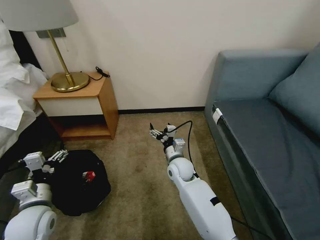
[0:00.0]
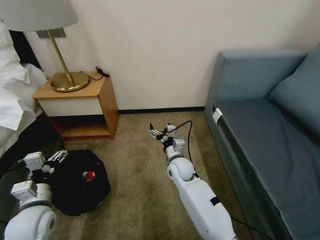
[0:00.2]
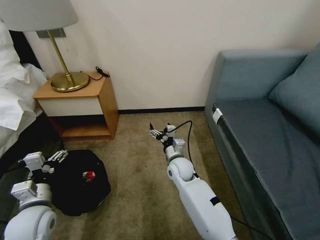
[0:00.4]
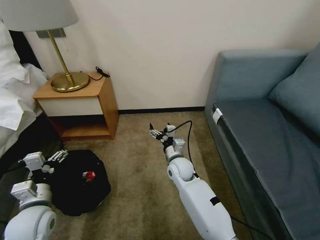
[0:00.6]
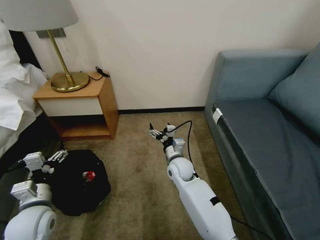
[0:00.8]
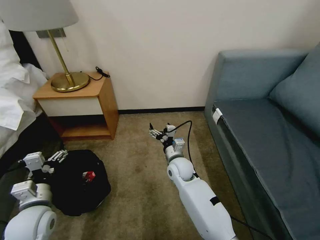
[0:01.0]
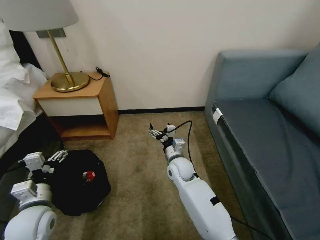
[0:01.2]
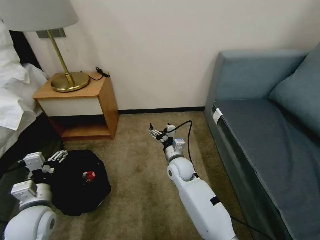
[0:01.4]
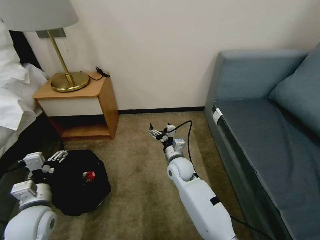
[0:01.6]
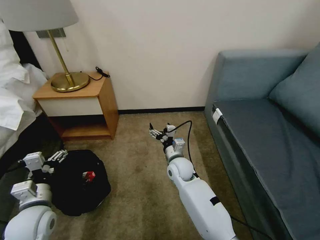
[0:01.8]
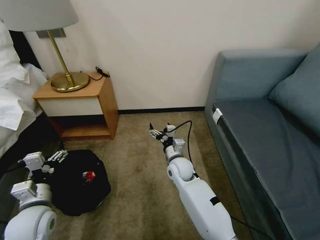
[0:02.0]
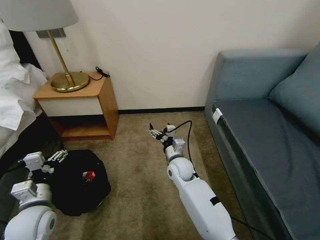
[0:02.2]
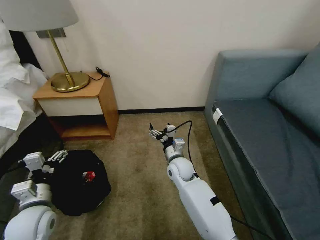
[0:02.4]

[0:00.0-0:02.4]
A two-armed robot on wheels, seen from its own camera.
Task of the whole recording: Pick up the trash bin, then pick up the garbage on the floor and place it into the trash bin.
0:00.0 to 0:02.4: Both grippers stay put.

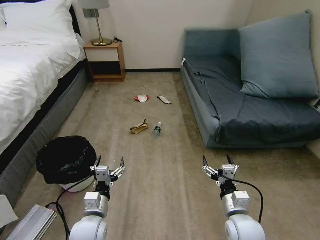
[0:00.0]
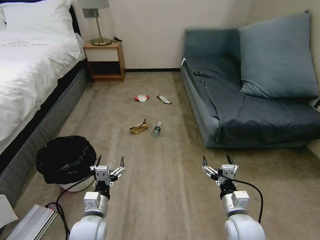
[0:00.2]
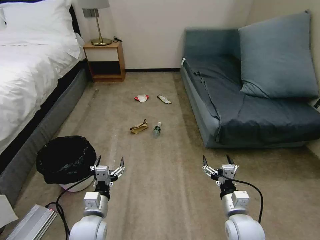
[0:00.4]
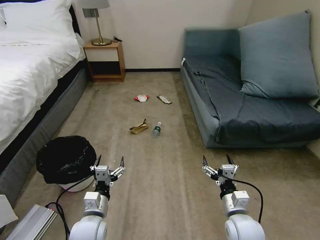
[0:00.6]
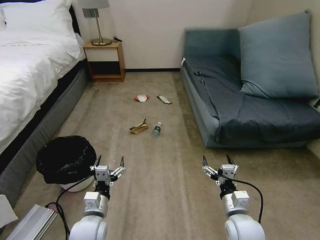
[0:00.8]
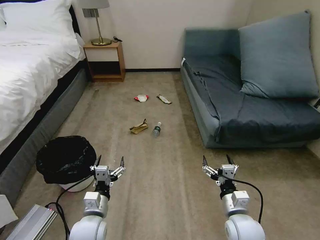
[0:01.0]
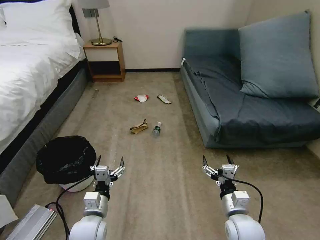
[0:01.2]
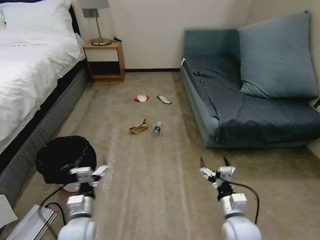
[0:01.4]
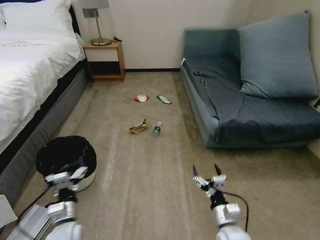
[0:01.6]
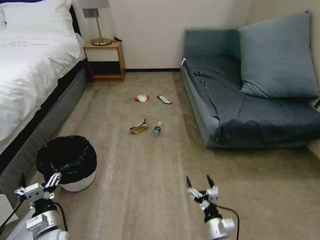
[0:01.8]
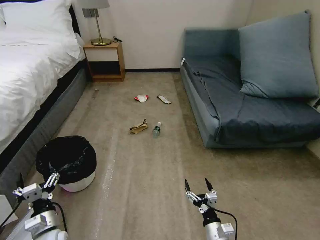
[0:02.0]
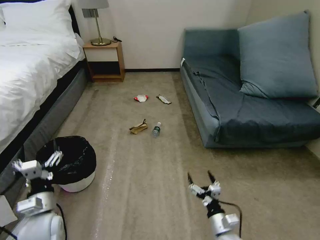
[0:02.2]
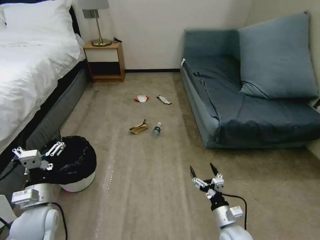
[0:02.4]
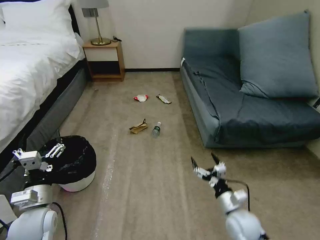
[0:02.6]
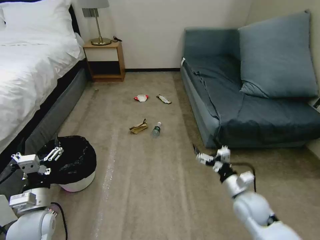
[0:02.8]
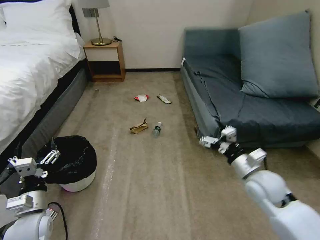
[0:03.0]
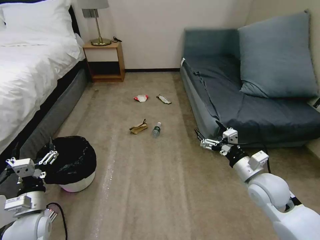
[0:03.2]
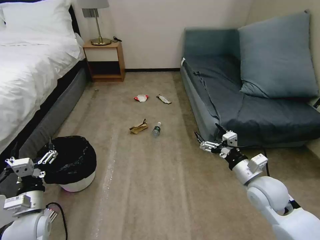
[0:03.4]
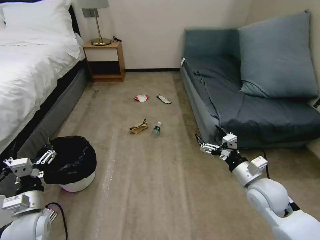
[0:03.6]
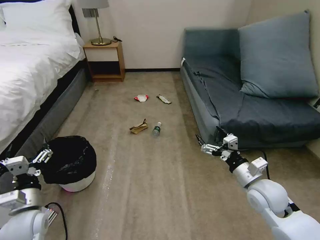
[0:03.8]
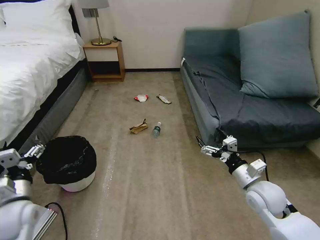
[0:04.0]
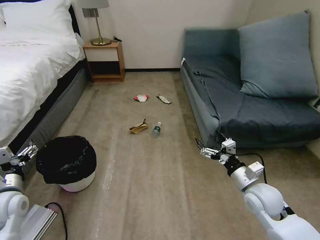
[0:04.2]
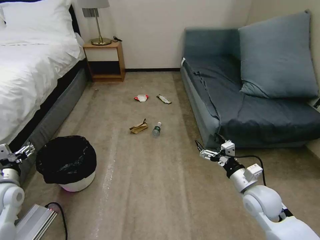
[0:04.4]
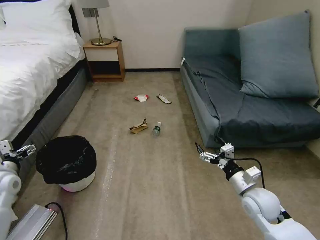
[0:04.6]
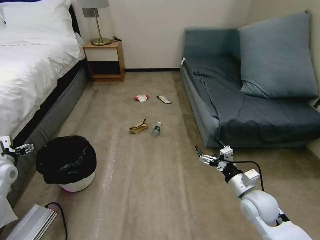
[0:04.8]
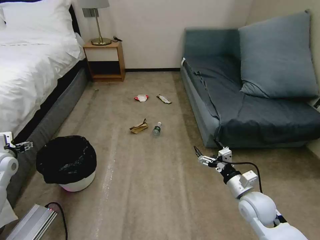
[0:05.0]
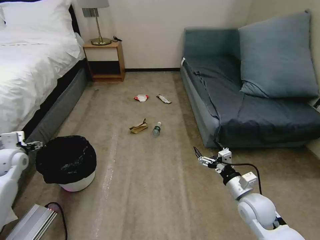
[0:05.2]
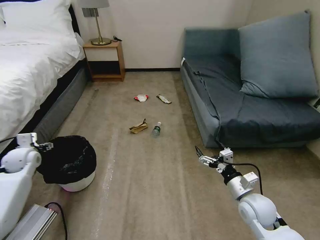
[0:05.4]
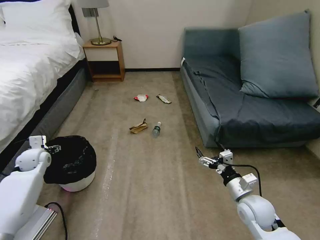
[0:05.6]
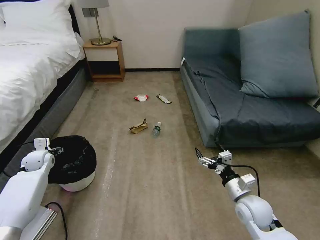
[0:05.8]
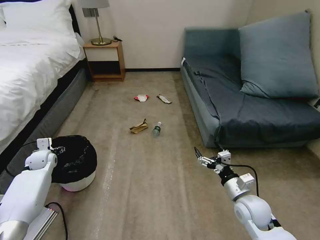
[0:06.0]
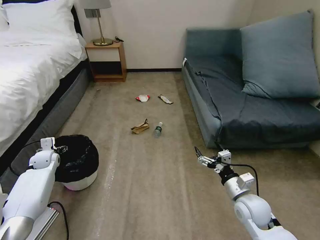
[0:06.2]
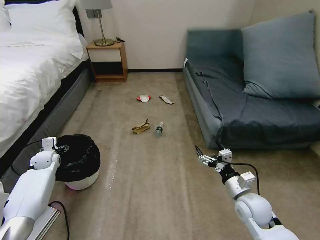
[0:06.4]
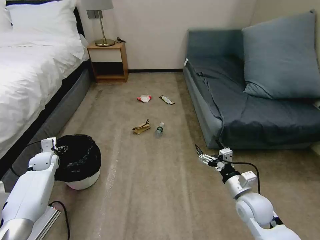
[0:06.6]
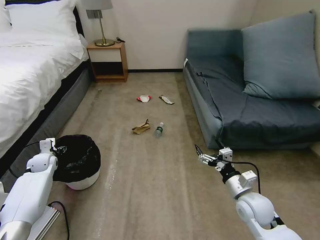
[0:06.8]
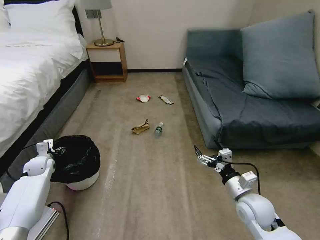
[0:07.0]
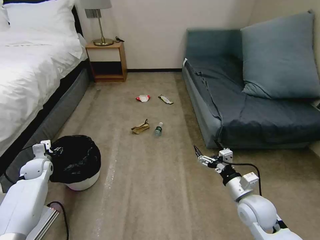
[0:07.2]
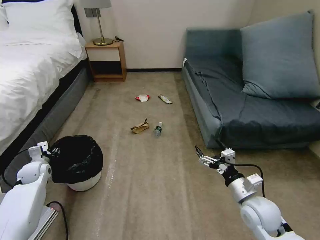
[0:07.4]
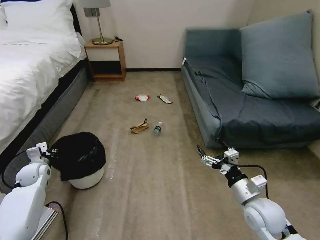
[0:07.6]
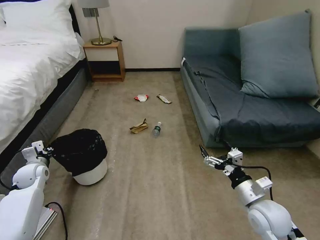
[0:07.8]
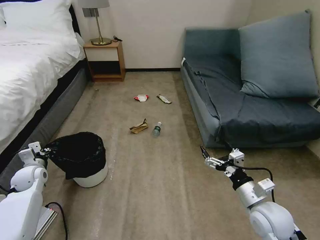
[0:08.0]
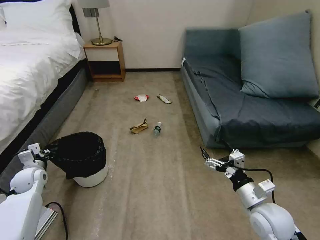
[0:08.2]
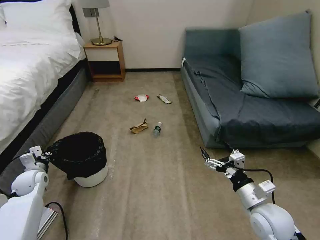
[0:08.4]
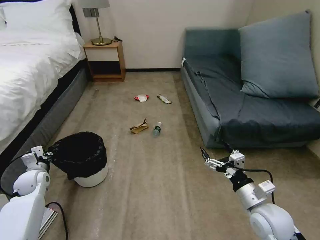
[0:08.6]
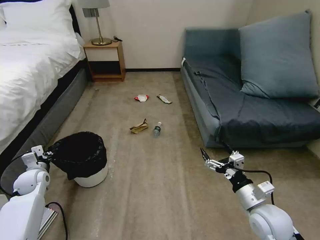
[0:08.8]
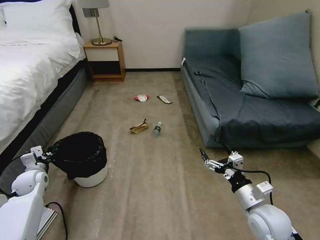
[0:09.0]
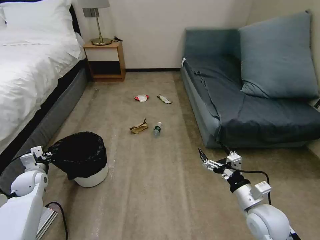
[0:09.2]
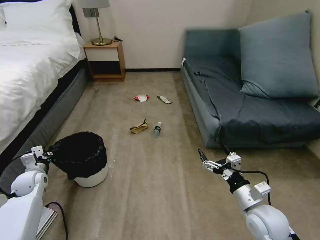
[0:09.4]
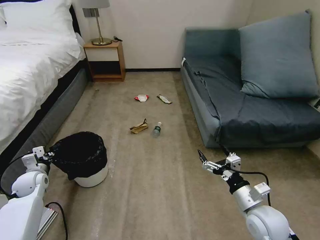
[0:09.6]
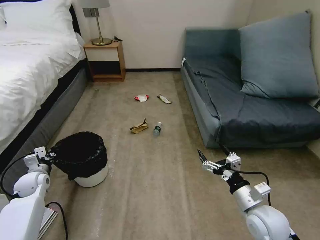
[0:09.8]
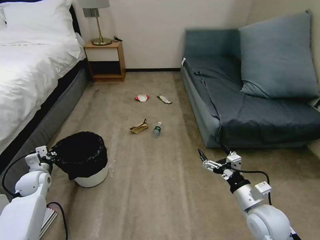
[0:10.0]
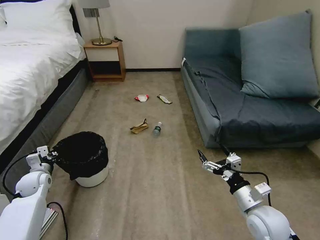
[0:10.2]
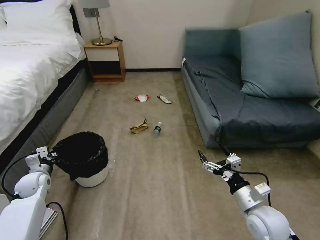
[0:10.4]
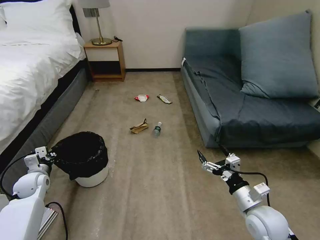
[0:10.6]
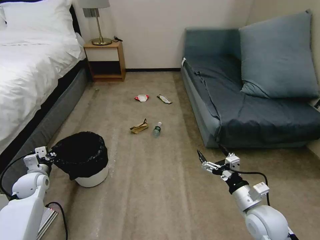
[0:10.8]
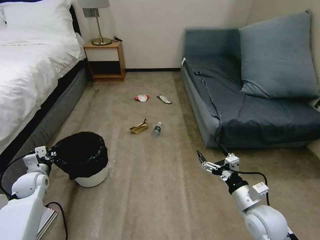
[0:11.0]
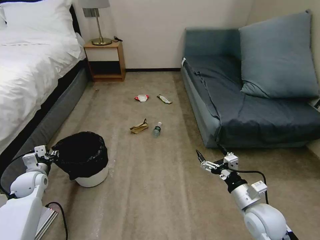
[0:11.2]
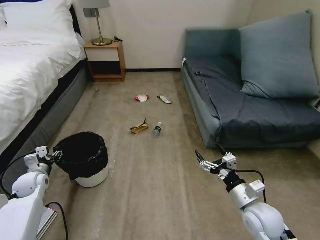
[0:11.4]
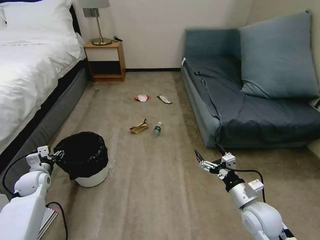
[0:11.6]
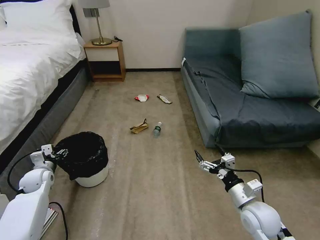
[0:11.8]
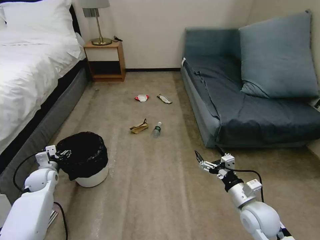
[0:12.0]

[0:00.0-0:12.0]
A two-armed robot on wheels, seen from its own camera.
Task of the whole recording: Pick up the trash bin, then pick up the garbage on the floor and place it into the trash bin.
0:01.6 to 0:03.0: The right gripper is displaced upward, forward and to the right by some 20 cm. The left gripper is displaced upward and to the left by approximately 10 cm.
0:03.0 to 0:04.4: The right gripper shifts roughly 5 cm downward. Meanwhile the left gripper goes some 10 cm to the left, forward and upward.
0:04.4 to 0:06.0: The left gripper goes about 20 cm forward and downward.
0:06.0 to 0:07.6: The left gripper goes about 5 cm backward, and closes up.
0:07.6 to 0:09.0: The grippers make only small movements.
0:09.0 to 0:10.4: The two grippers keep their place.
0:10.4 to 0:12.0: The left gripper opens.

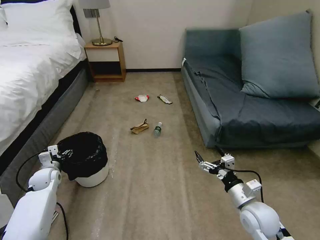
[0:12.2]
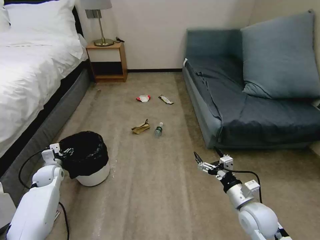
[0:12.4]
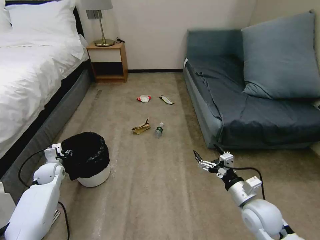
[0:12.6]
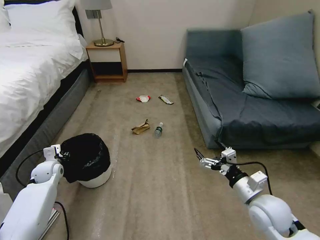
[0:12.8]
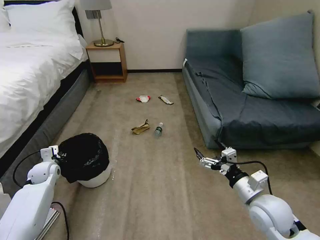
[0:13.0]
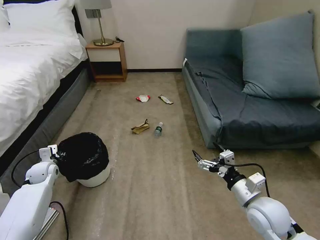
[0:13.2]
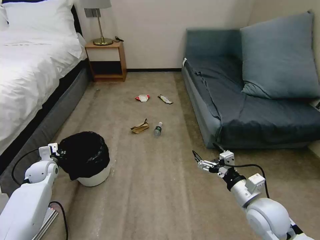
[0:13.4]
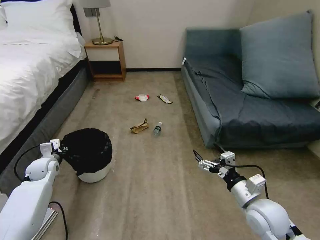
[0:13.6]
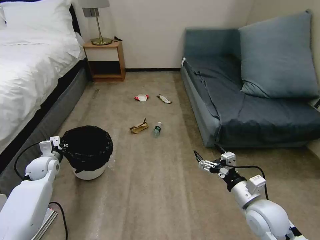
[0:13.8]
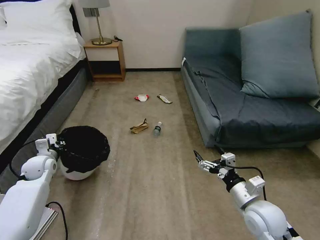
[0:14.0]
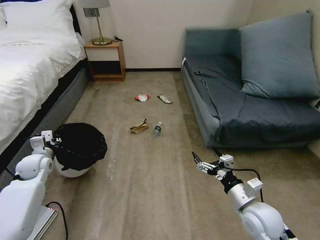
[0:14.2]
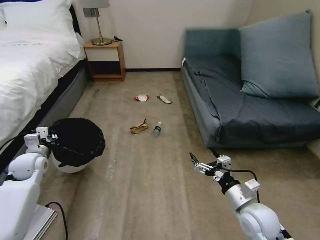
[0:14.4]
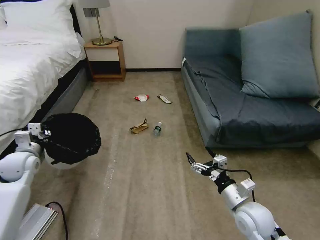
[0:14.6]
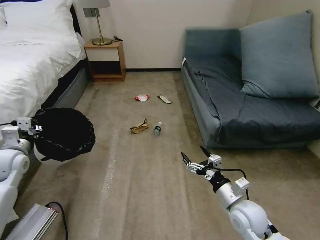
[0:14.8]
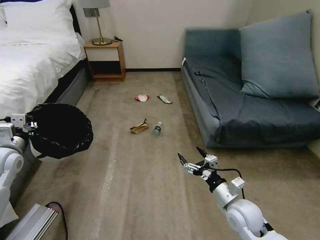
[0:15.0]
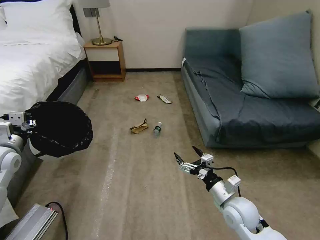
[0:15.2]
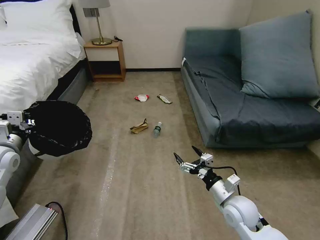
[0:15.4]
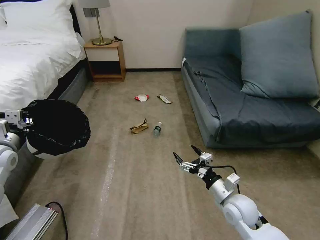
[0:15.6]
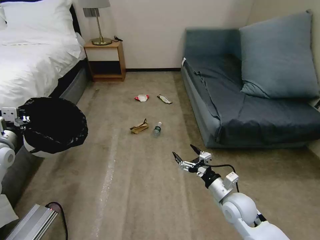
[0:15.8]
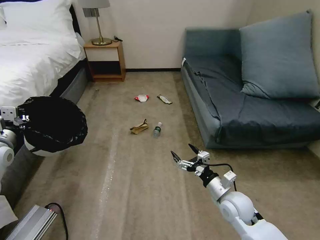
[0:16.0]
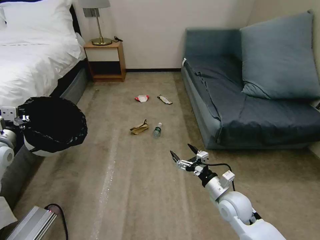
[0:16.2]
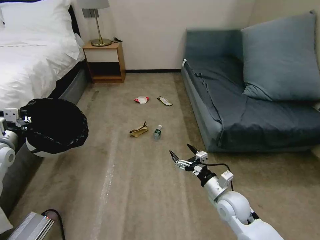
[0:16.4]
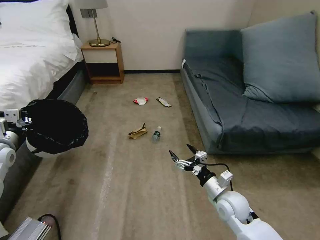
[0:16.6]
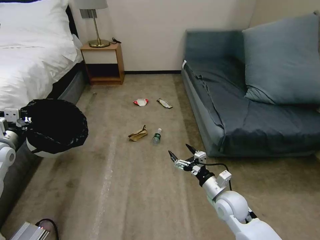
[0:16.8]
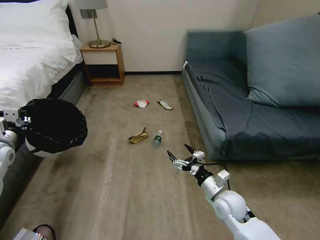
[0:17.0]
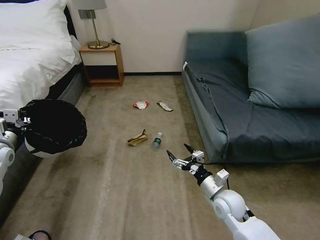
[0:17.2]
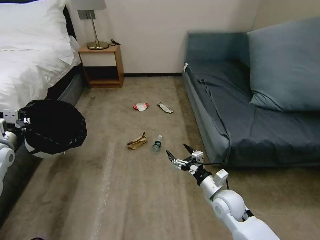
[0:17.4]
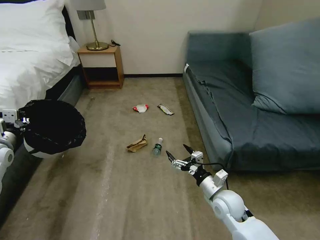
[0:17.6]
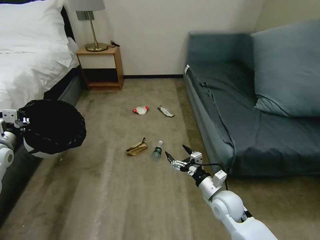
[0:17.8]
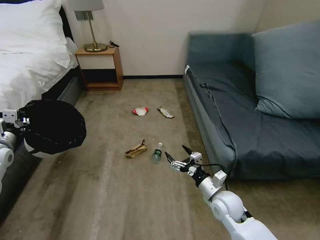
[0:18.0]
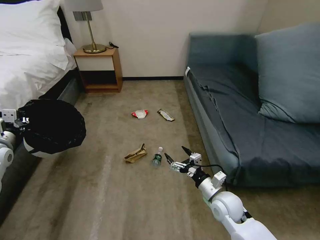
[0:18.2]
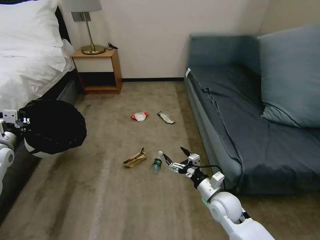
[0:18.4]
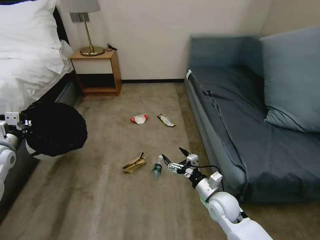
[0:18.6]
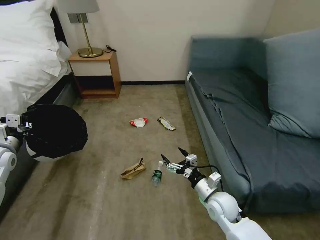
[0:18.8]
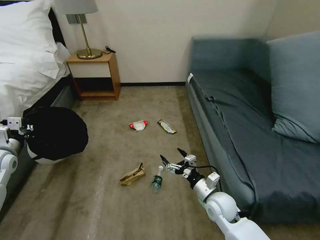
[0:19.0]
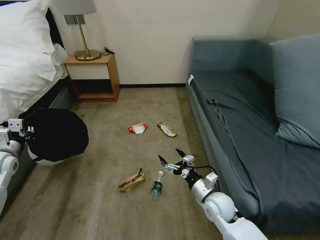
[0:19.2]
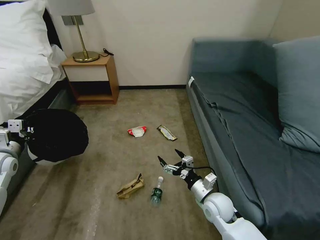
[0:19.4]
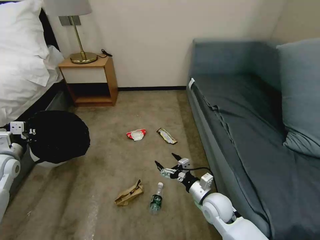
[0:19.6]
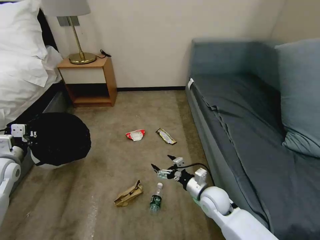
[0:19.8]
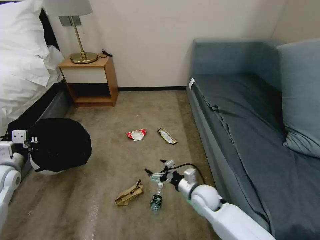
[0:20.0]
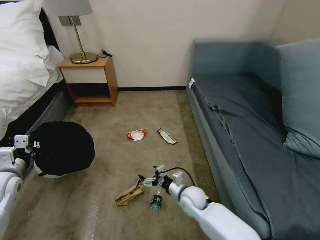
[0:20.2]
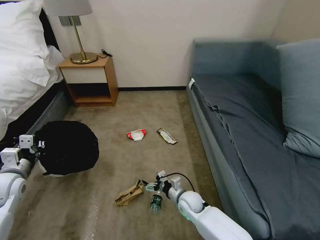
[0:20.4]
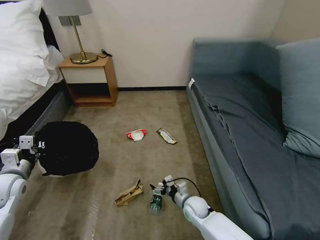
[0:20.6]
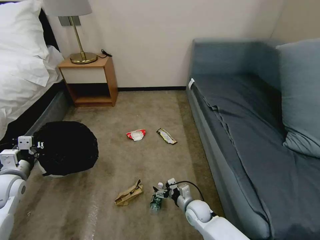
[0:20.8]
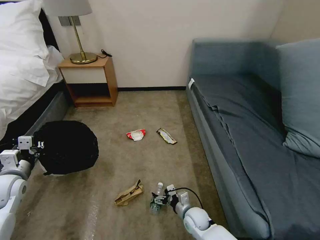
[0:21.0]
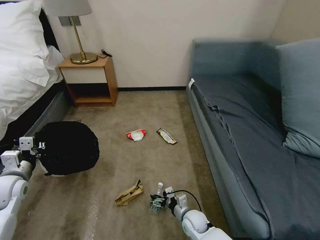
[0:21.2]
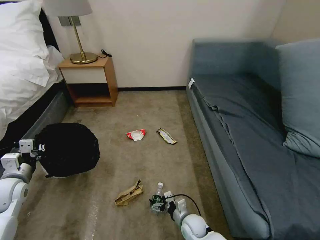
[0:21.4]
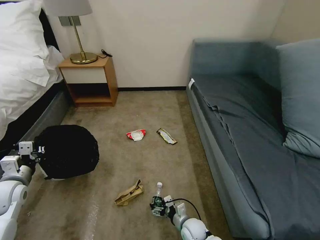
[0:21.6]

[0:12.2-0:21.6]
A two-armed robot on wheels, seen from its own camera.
Task of the whole recording: Pick up the trash bin, then pick up the garbage on the floor and place it into the trash bin.
0:12.2 to 0:13.8: The left gripper shifts roughly 5 cm upward, and closes its fingers.
0:13.8 to 0:15.4: The left gripper heads upward and backward, covering approximately 15 cm. The right gripper moves about 5 cm.
0:18.4 to 0:20.0: The right gripper ends up roughly 5 cm from where it was. Meanwhile the left gripper ends up some 5 cm from where it was.
0:20.0 to 0:21.6: The right gripper moves downward and backward, about 20 cm. Meanwhile the left gripper shifts by approximately 5 cm.
